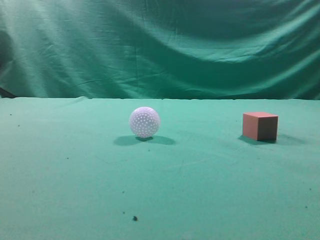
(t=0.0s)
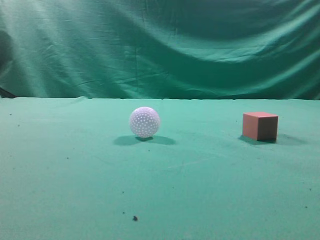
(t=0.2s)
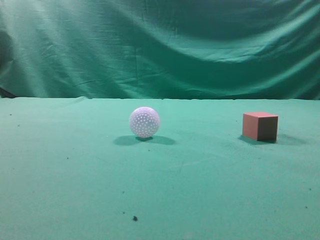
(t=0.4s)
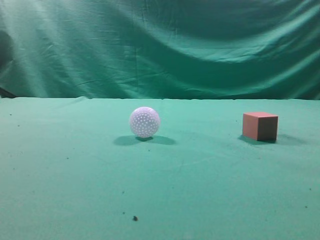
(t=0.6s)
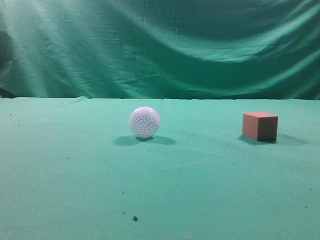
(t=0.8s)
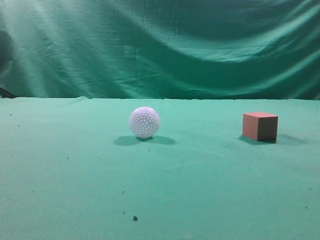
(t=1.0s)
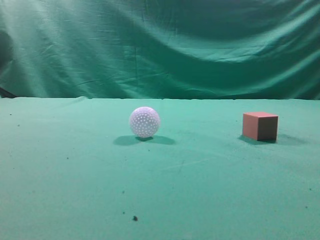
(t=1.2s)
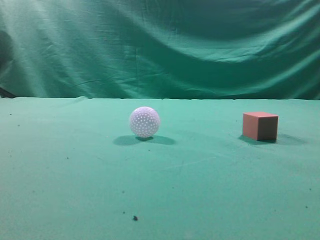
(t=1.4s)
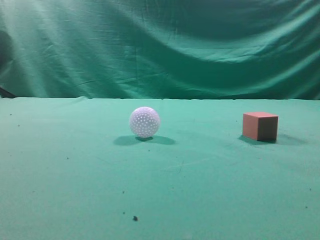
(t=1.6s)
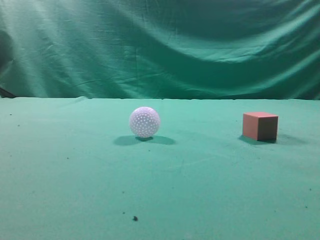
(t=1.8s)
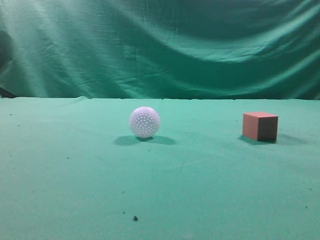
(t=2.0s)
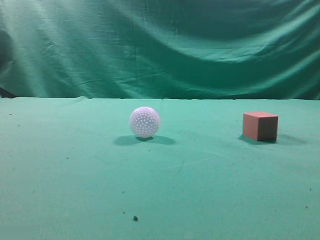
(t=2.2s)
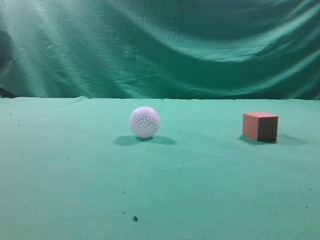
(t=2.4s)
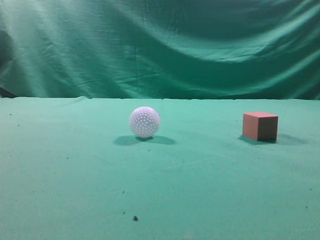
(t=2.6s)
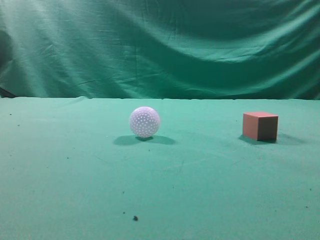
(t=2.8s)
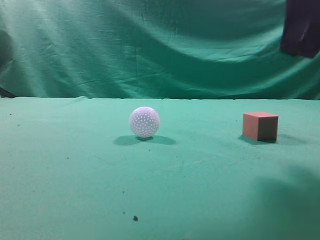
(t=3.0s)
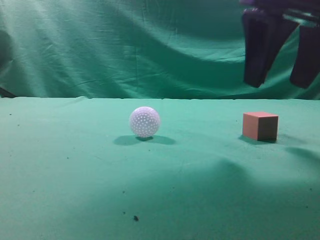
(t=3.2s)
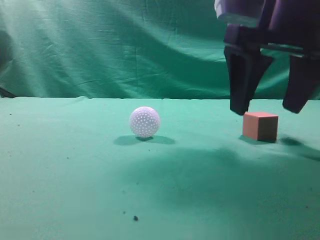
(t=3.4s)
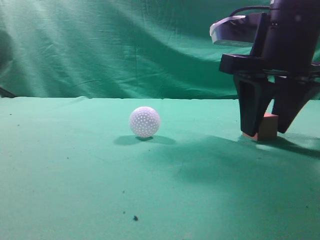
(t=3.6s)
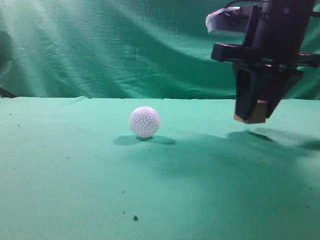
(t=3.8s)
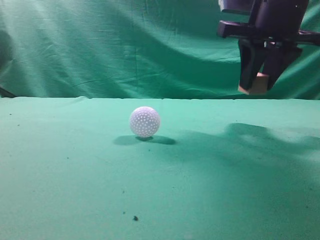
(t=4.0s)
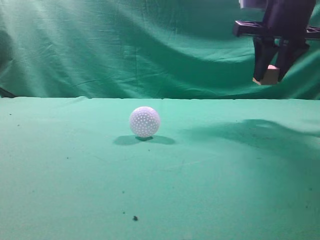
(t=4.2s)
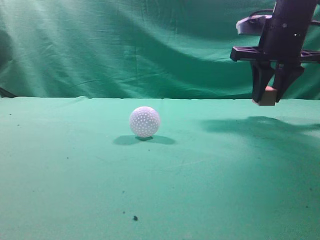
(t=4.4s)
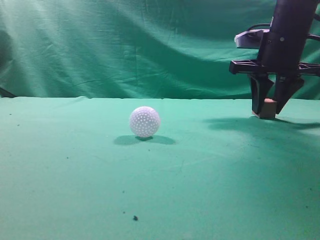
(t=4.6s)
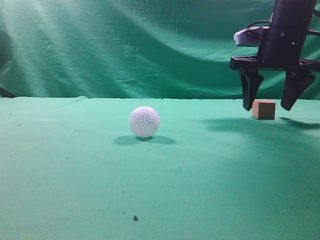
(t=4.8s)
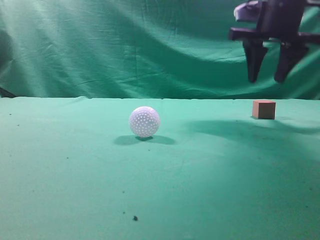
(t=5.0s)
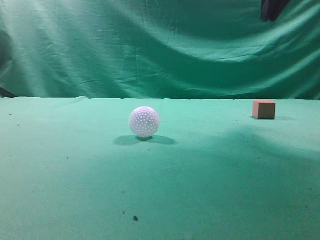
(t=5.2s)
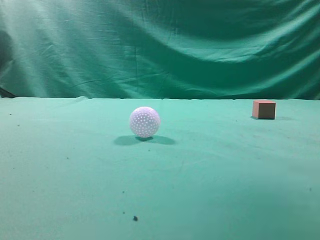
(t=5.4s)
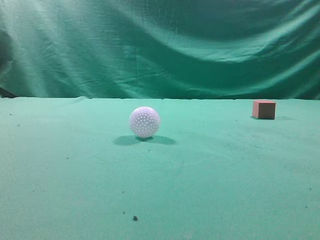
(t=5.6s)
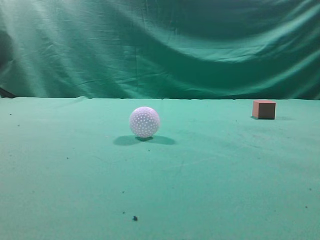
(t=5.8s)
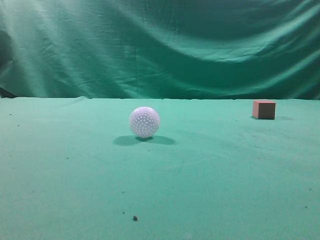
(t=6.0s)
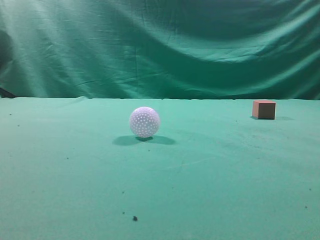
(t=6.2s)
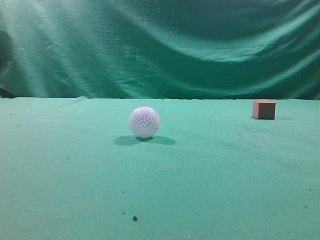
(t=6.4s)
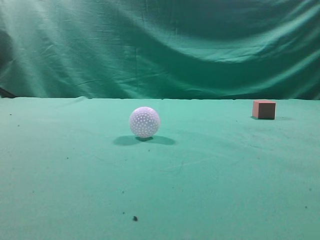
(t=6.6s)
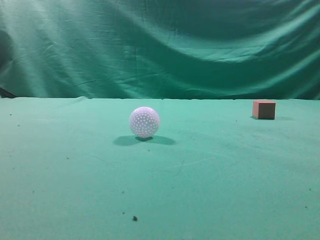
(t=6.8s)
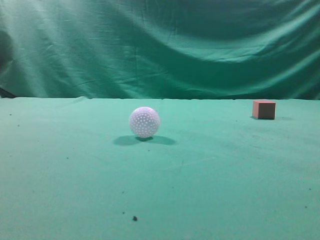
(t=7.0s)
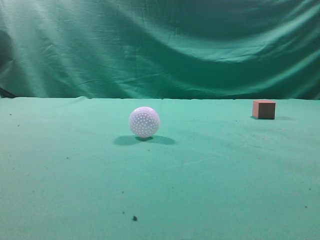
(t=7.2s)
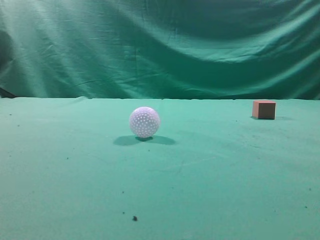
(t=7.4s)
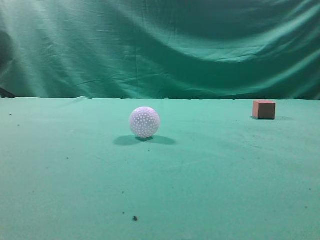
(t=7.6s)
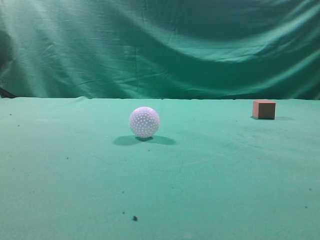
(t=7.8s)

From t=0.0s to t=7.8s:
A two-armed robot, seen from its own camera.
Task of the whole recording: pick up the cube block and place it in another position on the table.
Step, from t=0.0s to t=3.6s: Pick up the small cube.
Step, from t=4.0s to t=4.6s: Place the small cube on the ahead of the table.
From t=1.6s to t=3.2s: The right gripper is displaced forward and to the left by roughly 25 cm, and opens up.
From t=3.2s to t=4.6s: The right gripper moves forward, about 15 cm, and closes its fingers.
From t=4.6s to t=6.2s: The right gripper is displaced backward and upward by some 40 cm, and closes up.
